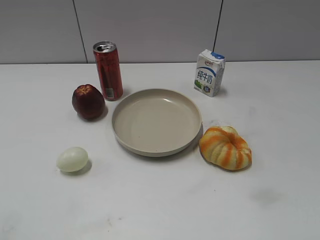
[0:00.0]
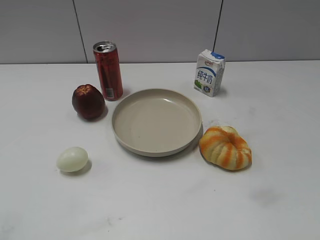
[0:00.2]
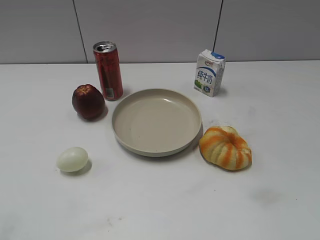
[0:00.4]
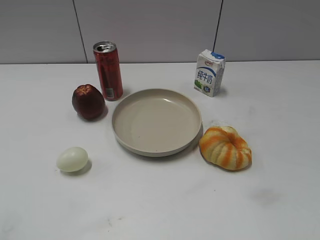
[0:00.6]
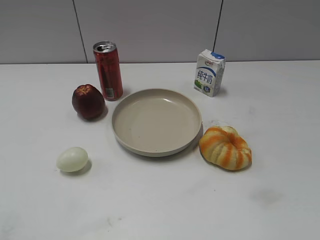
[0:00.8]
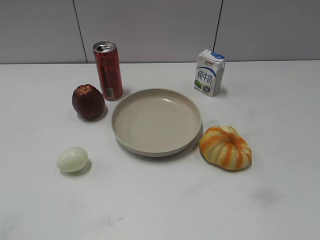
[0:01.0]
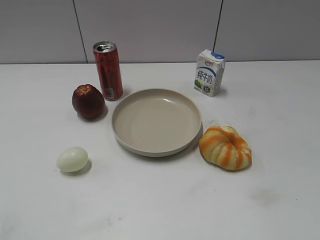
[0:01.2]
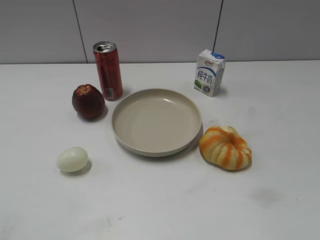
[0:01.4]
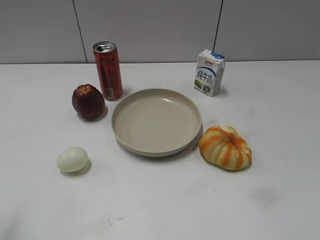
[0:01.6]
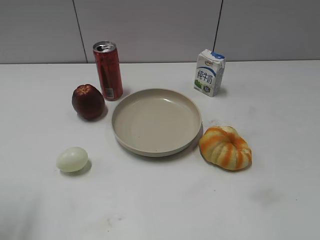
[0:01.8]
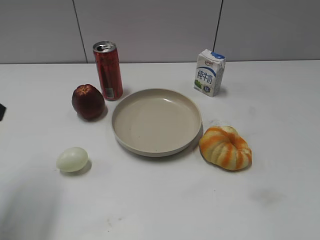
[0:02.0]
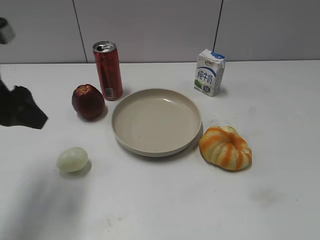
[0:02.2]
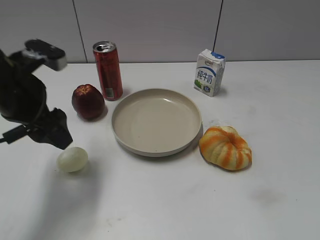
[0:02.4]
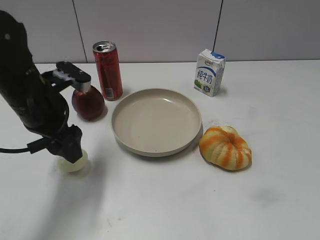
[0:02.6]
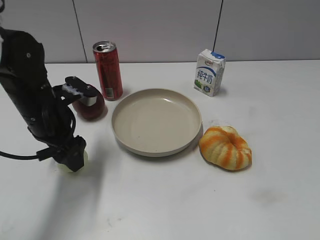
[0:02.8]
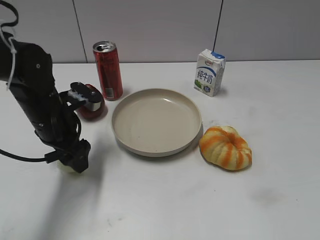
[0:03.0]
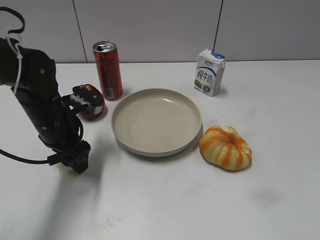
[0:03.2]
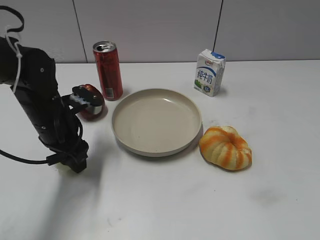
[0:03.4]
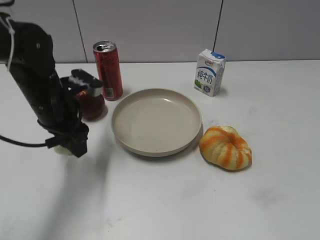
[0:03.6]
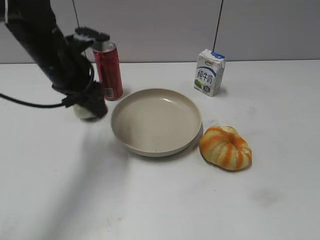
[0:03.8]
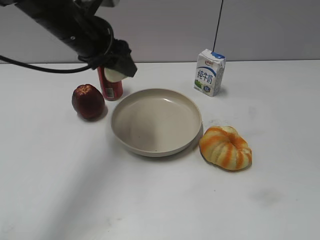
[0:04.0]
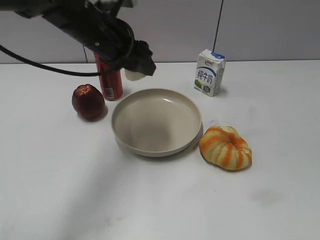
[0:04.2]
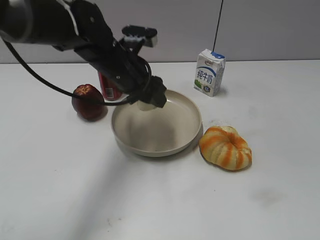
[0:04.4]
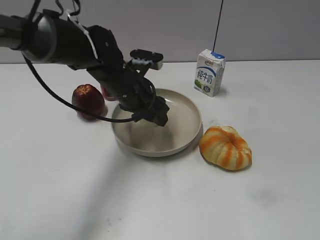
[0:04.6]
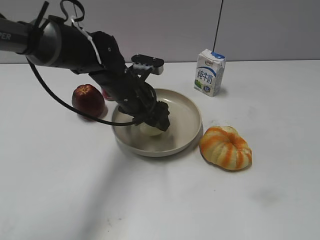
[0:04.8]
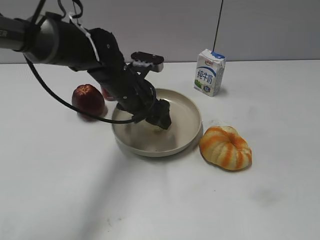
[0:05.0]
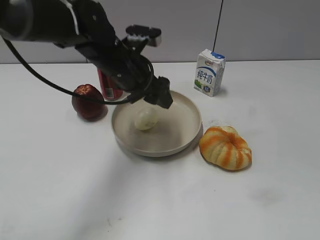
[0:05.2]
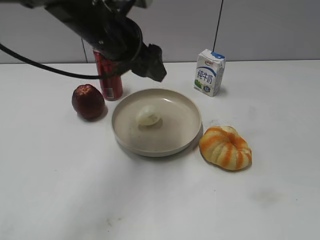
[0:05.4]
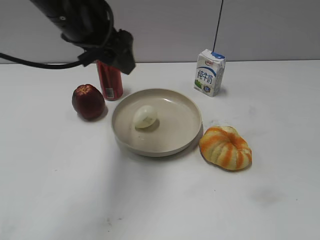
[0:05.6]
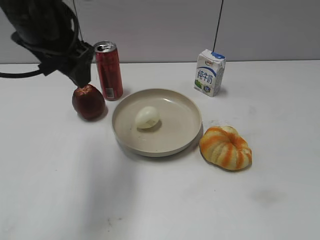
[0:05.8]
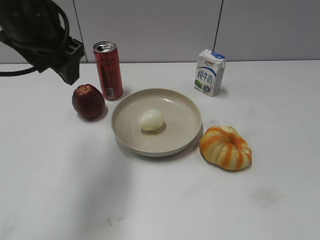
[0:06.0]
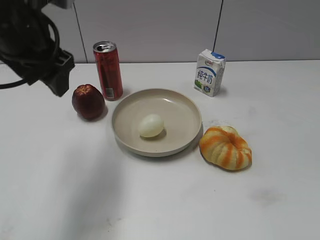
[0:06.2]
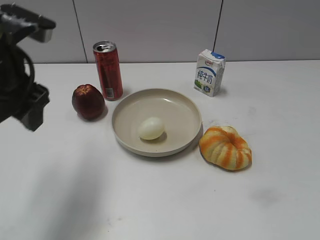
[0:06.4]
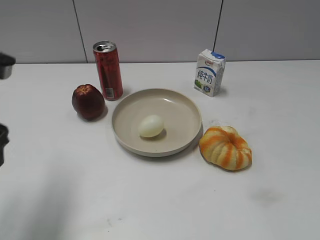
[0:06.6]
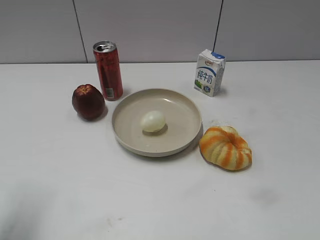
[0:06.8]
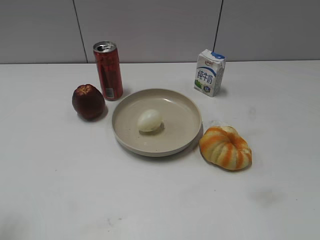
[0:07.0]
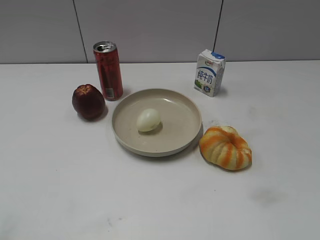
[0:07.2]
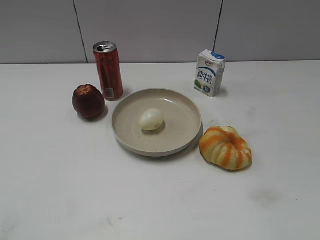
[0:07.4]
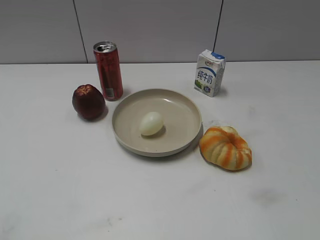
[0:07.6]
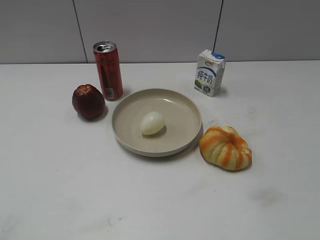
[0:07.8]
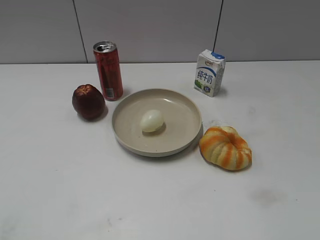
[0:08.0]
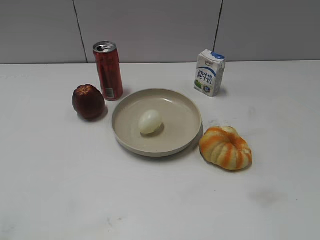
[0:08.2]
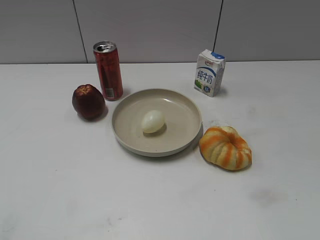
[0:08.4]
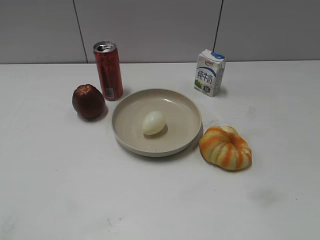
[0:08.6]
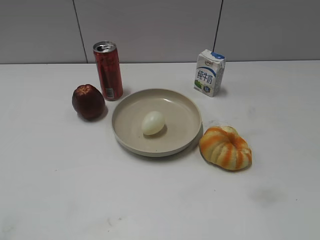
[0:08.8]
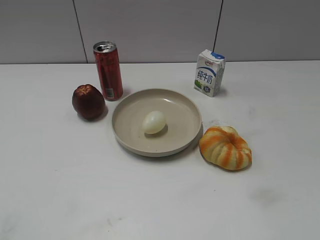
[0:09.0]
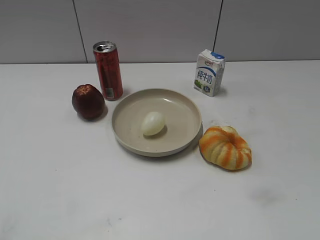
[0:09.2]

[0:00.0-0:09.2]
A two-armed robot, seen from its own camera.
Step, 0:01.0 to 0:03.4: Grasp the egg with left gripper.
Step, 0:03.6 to 0:05.0: Place the egg on the plate with left gripper.
0:01.6 to 0:03.0: The left gripper shifts some 30 cm forward, downward and to the right.
0:03.0 to 0:04.6: The left gripper heads to the right and forward, covering some 15 cm, moves about 10 cm upward and comes back, and closes its fingers.
0:04.6 to 0:06.2: The left gripper is displaced upward, to the left and backward by some 20 cm, and opens its fingers.
0:06.2 to 0:07.6: The left gripper moves backward and to the left, roughly 30 cm.
